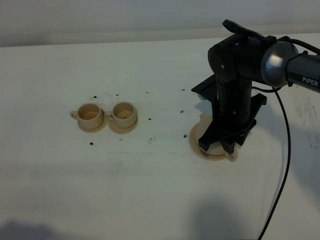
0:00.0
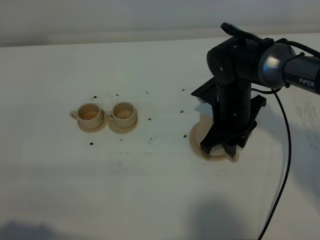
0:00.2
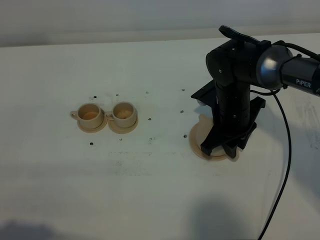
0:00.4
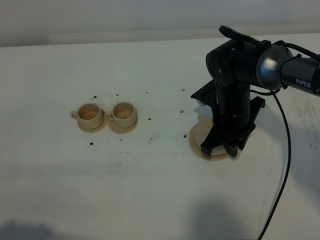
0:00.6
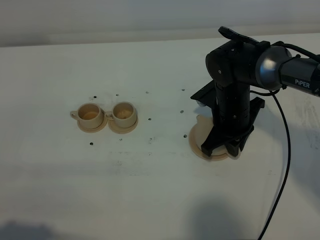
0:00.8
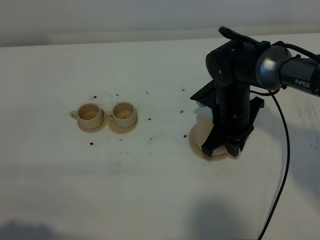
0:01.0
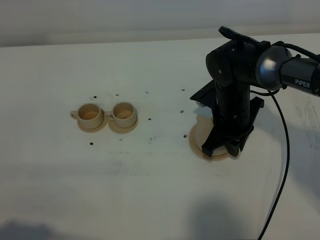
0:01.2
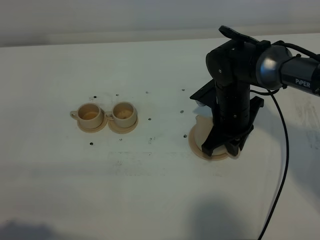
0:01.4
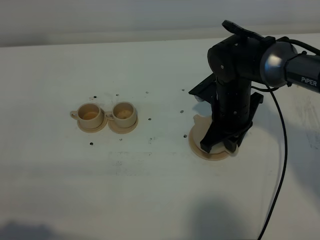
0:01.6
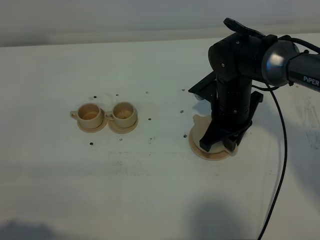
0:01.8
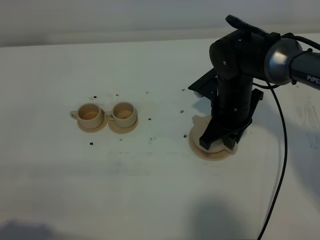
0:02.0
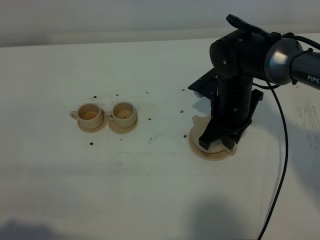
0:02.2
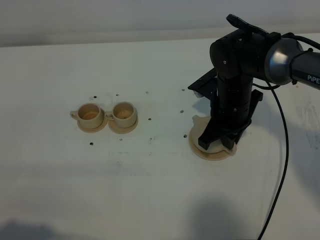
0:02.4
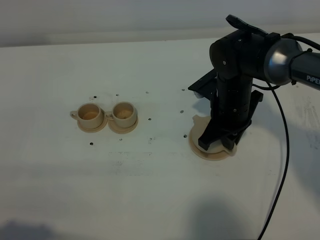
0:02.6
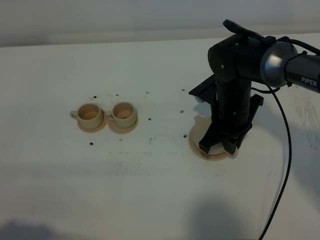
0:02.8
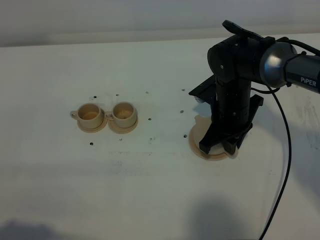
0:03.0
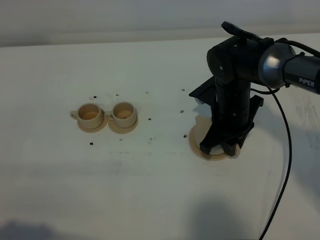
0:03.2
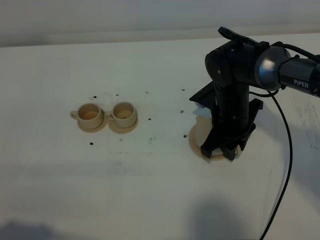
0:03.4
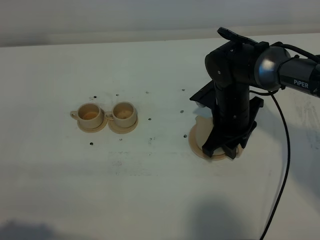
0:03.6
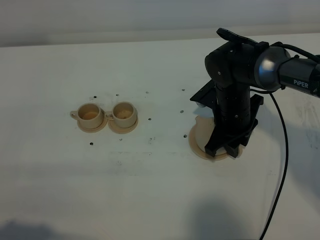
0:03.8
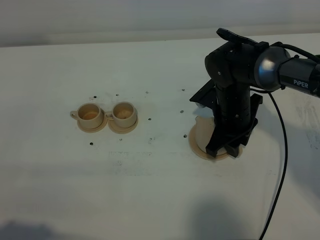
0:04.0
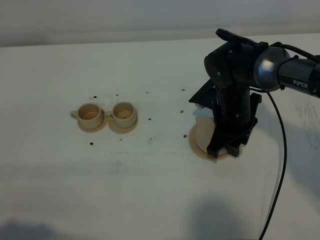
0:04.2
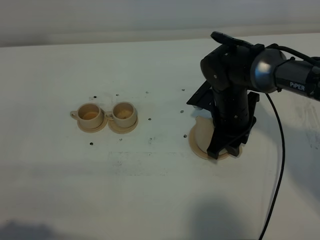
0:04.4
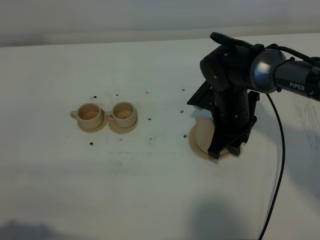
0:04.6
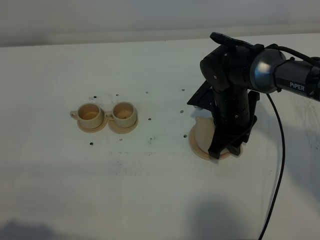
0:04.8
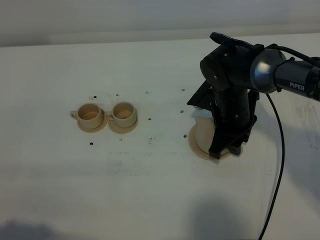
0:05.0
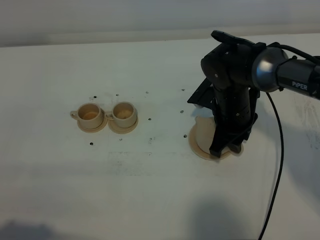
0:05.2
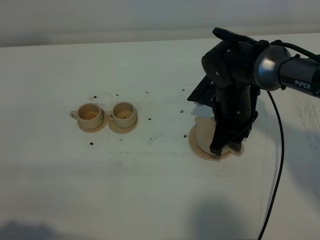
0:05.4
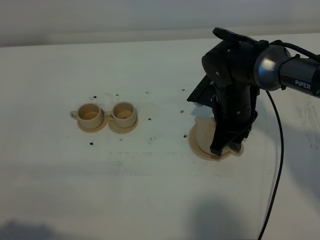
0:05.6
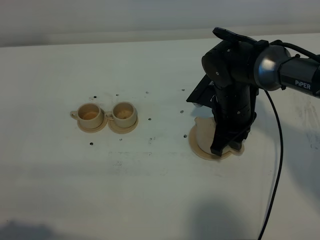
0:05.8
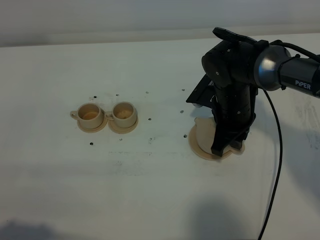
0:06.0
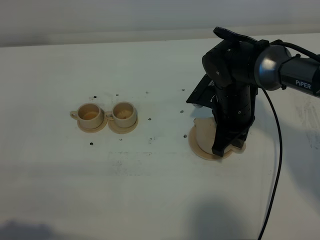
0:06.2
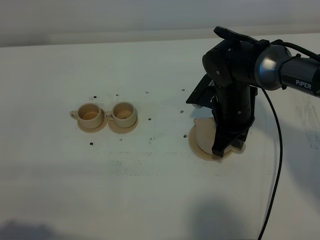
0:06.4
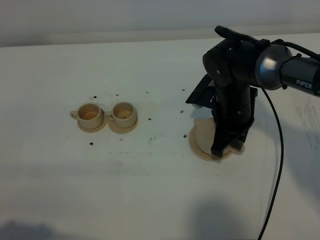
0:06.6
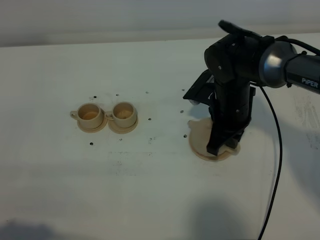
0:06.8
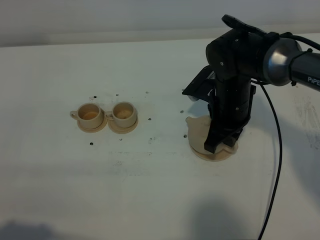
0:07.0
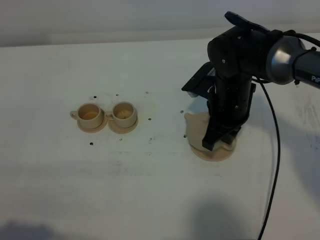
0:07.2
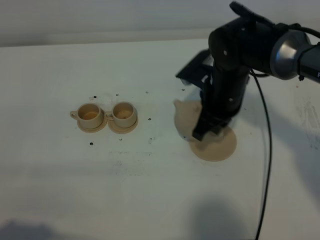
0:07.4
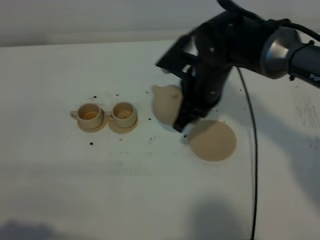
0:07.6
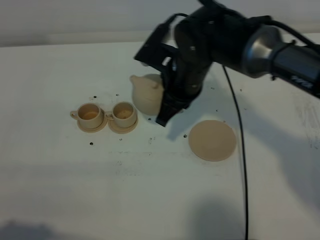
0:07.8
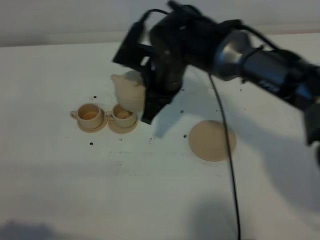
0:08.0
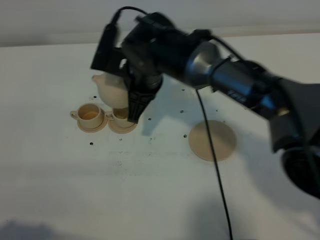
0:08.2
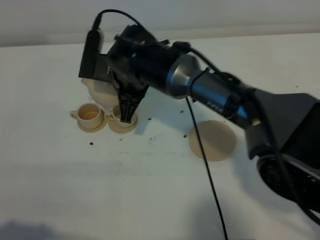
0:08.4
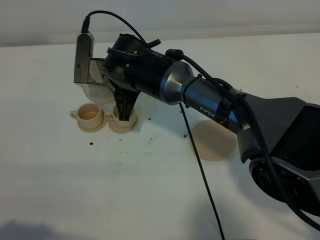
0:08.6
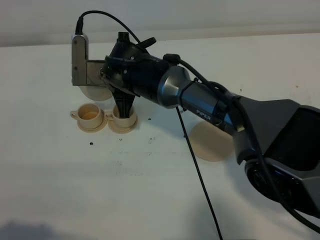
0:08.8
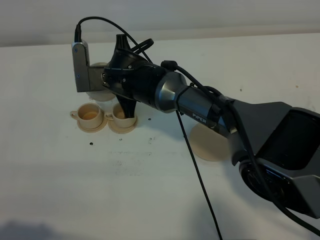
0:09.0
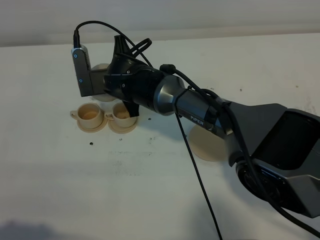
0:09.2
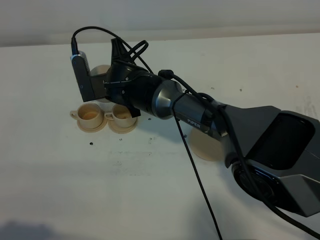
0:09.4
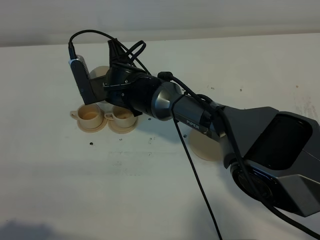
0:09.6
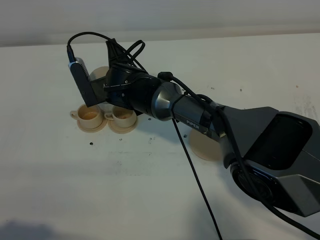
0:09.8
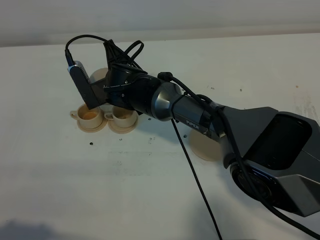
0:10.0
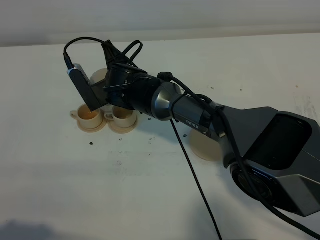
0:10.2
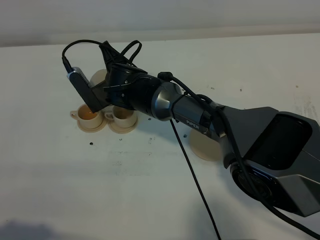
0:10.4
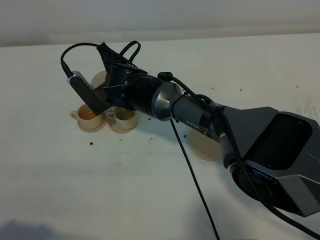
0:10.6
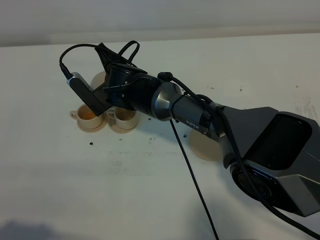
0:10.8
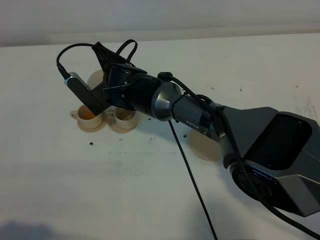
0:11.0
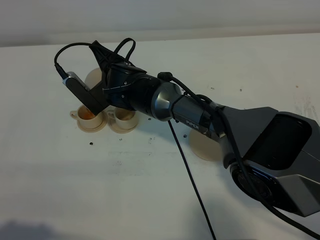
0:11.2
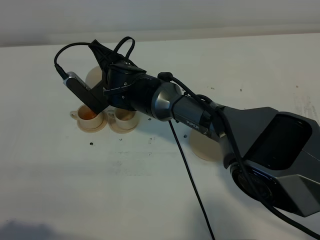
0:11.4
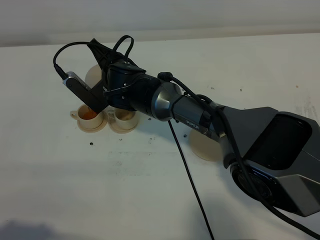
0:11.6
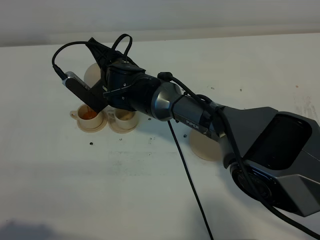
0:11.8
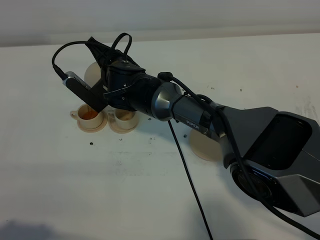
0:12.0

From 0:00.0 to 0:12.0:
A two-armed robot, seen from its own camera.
Task of the whole recording: grasp the brown teapot and pour the tea into the two brown teacups one by one, put the brown teapot back in its original place.
Step, from 0:00.0 to 0:07.2: Pick up the teapot with the right gripper.
From 0:00.0 to 0:01.6: The right gripper closes up.
From 0:01.6 to 0:03.0: Both grippers stay about where they are.
From 0:03.0 to 0:04.4: The right gripper opens up.
From 0:04.4 to 0:06.0: There are only small adjustments of the grippers.
From 0:06.0 to 0:07.6: The right gripper heads upward and to the left, covering approximately 10 cm.
From 0:07.6 to 0:09.0: The right gripper moves to the left, about 15 cm.
From 0:10.4 to 0:12.0: The grippers stay close to where they were, moving slightly.

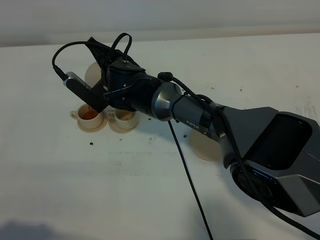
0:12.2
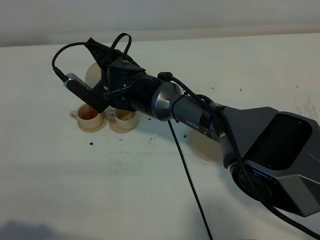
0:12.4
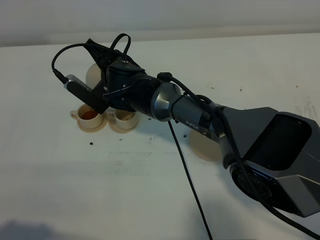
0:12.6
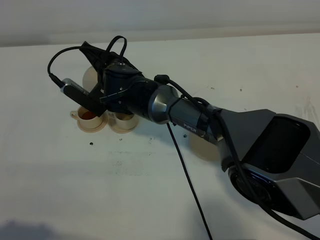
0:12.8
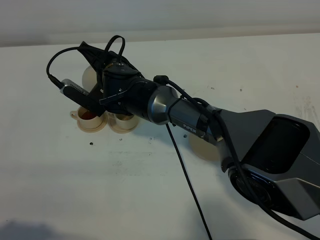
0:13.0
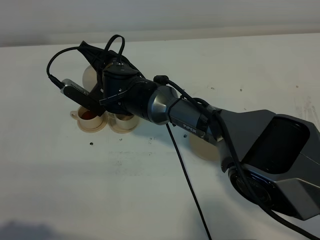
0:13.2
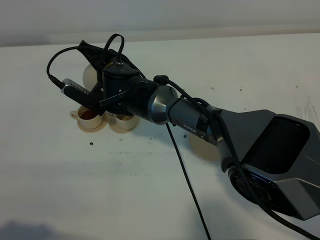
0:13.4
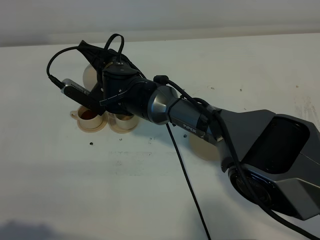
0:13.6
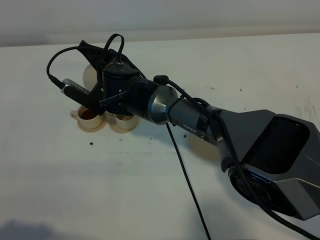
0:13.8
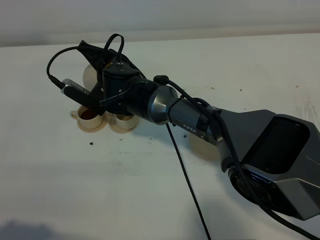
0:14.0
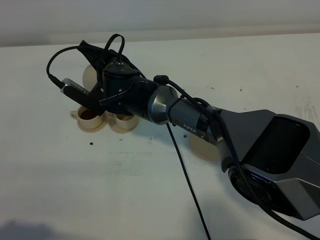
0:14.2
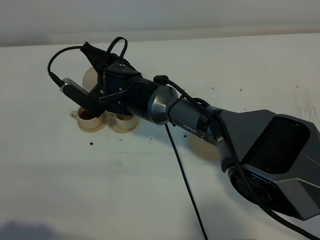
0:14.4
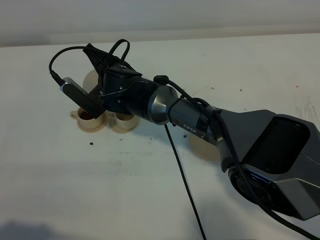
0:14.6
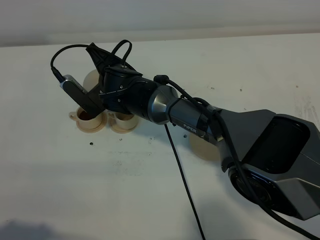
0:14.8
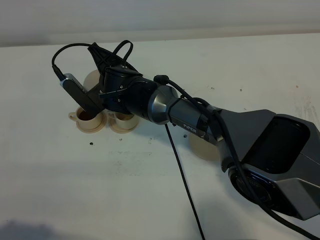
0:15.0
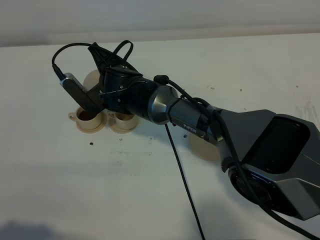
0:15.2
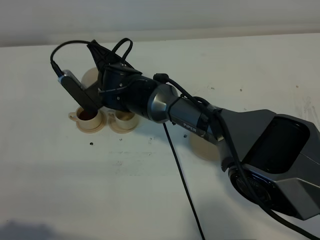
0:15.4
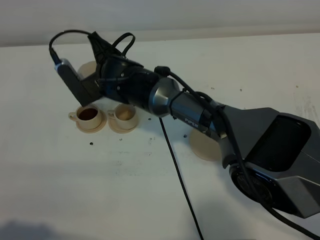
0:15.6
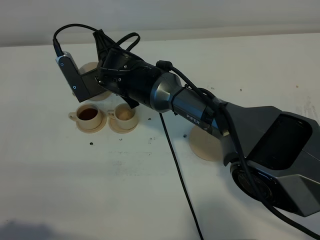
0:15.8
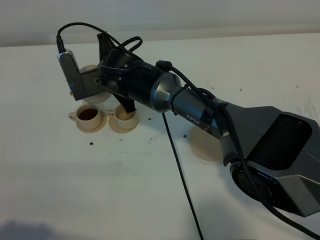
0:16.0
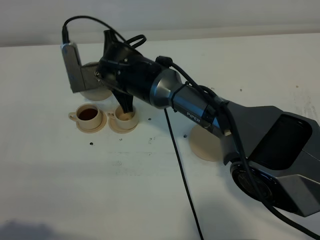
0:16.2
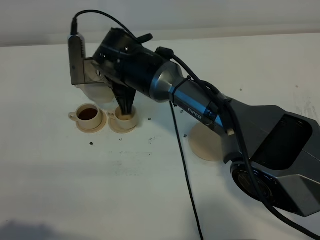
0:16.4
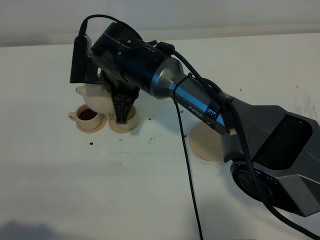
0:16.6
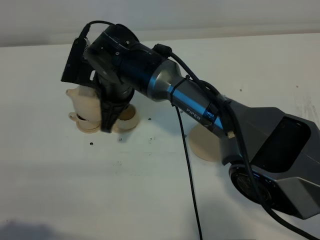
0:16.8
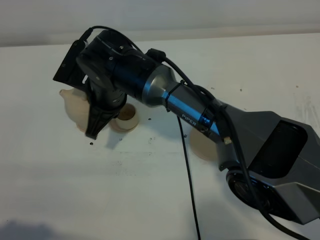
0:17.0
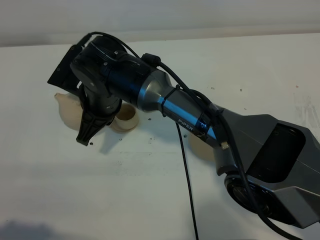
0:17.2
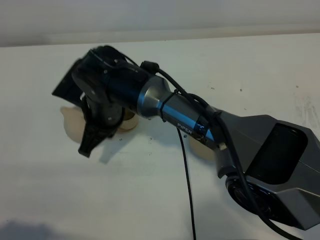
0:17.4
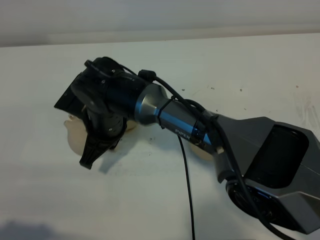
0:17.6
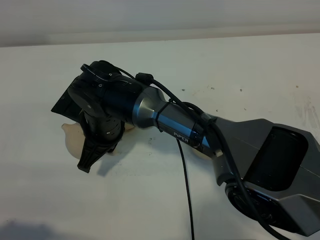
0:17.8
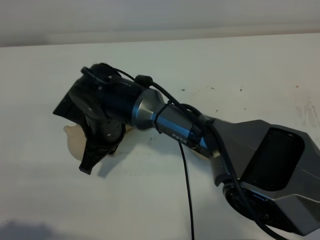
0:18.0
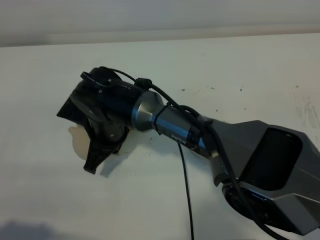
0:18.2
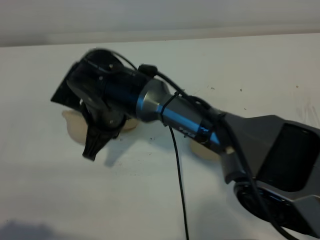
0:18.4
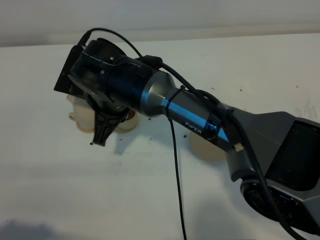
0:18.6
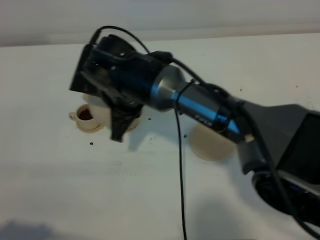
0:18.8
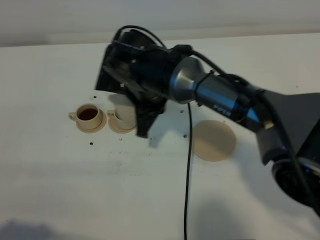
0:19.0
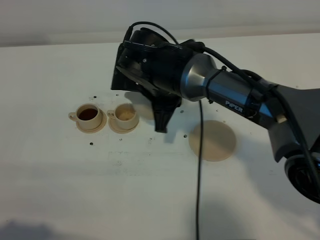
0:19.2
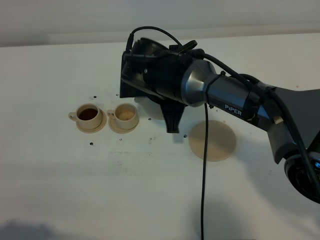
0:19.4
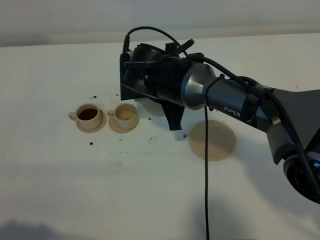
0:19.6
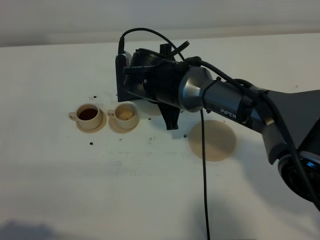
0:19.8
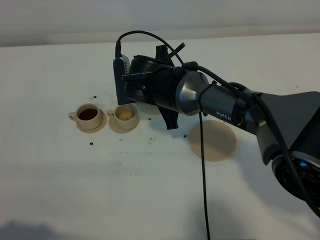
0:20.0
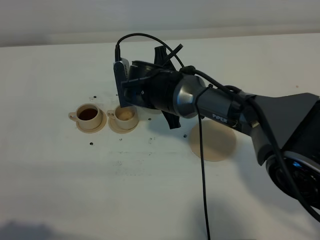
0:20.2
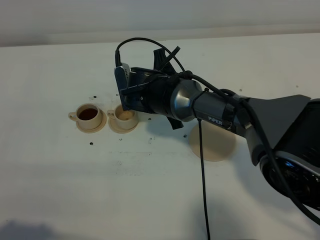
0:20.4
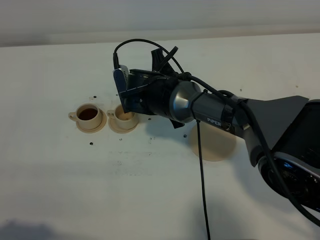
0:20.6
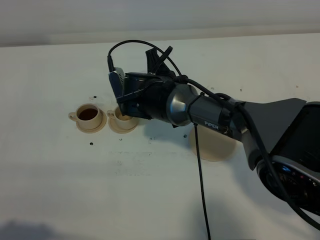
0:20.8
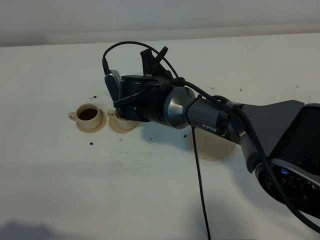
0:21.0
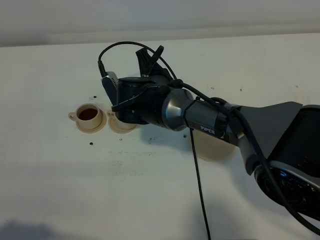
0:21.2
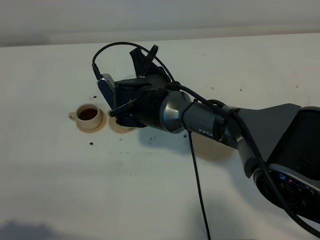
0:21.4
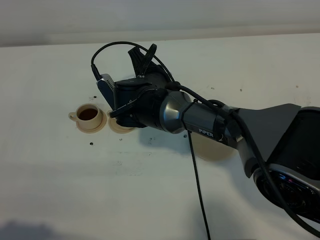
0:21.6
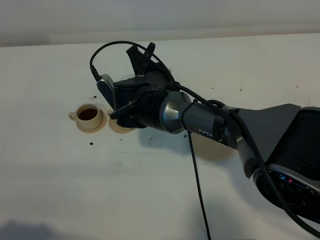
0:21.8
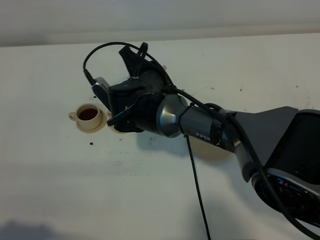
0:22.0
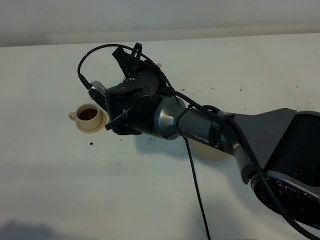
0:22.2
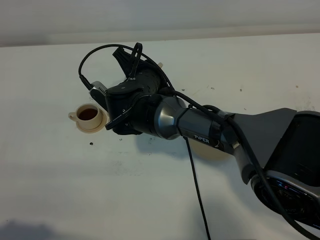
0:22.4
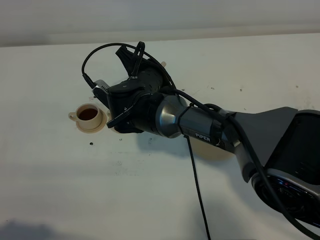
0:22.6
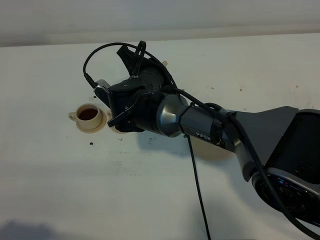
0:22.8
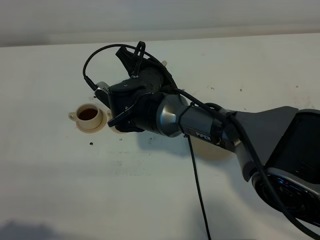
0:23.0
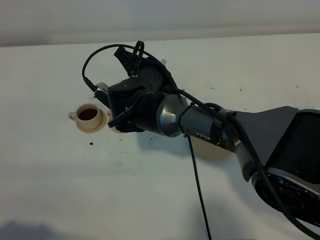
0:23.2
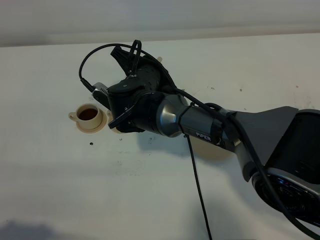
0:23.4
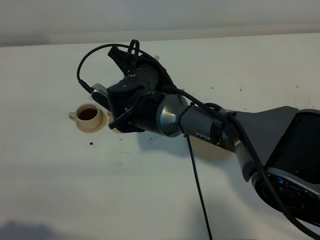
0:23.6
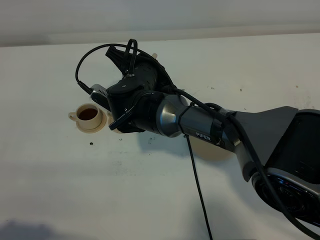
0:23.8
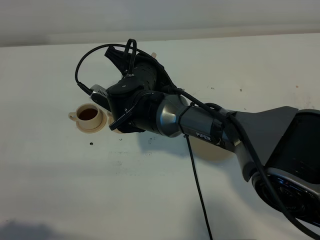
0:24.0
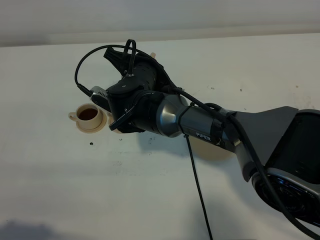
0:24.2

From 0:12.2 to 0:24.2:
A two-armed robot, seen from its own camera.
Task of the whole recording: grasp the brown teapot and pour the tea into the two brown teacups one by one, put the brown teapot back in its original place.
Step, from 0:12.2 to 0:15.6: Pour tea into the teacup with the right gripper.
From 0:12.2 to 0:15.2: There are only small adjustments of the grippers.
From 0:15.2 to 0:16.6: The right gripper ends up approximately 5 cm from where it was.
From 0:16.6 to 0:18.2: The right gripper moves backward, about 5 cm.
From 0:18.2 to 0:19.8: The right gripper moves to the right and forward, approximately 10 cm.
From 0:21.2 to 0:22.6: The grippers make only small movements.
From 0:22.6 to 0:24.2: The grippers stay close to where they were, moving slightly.
